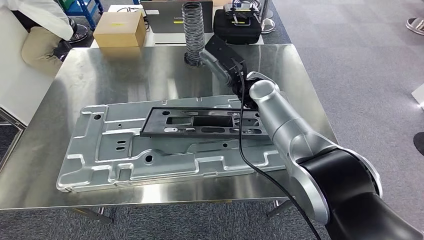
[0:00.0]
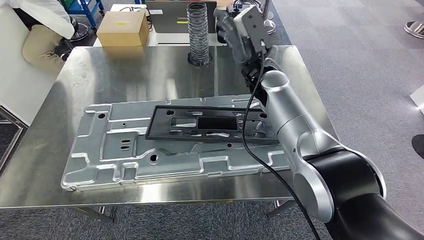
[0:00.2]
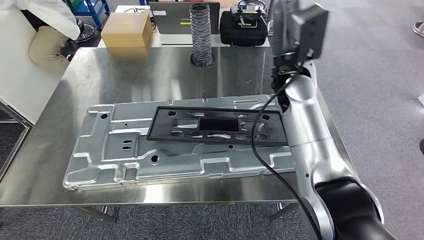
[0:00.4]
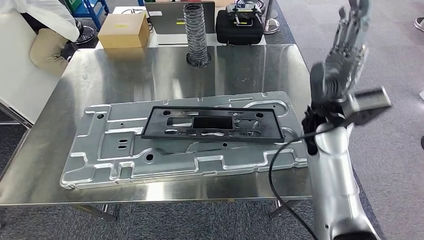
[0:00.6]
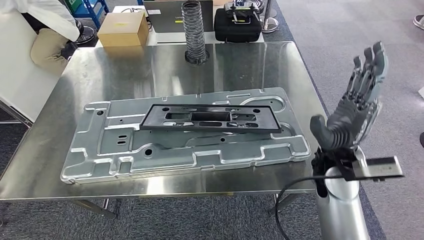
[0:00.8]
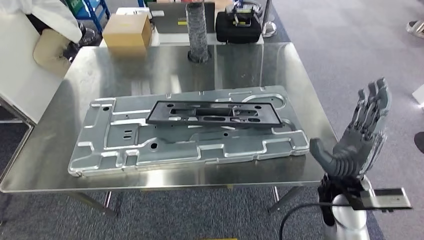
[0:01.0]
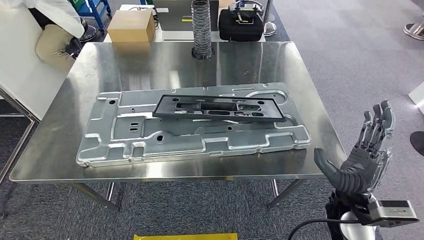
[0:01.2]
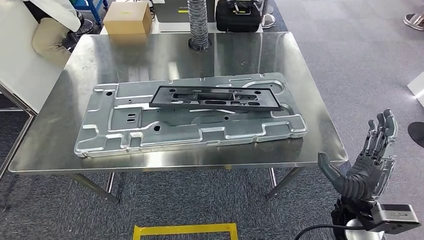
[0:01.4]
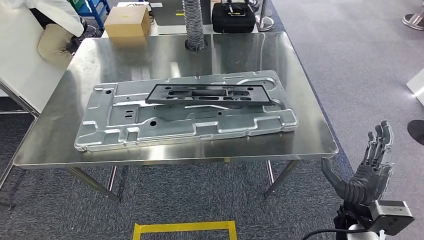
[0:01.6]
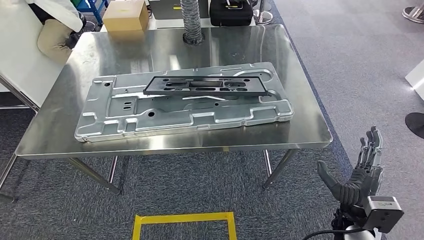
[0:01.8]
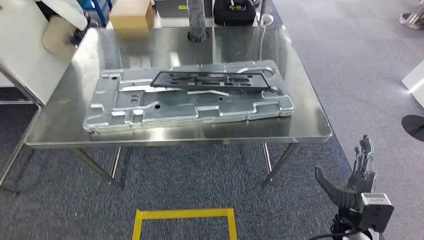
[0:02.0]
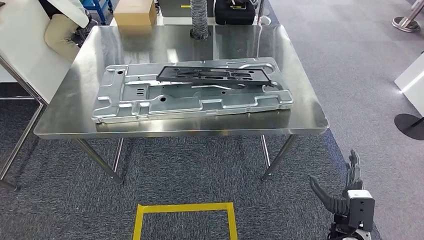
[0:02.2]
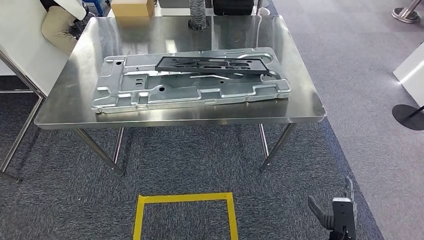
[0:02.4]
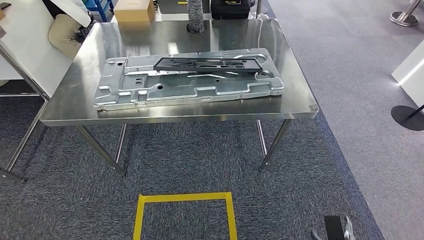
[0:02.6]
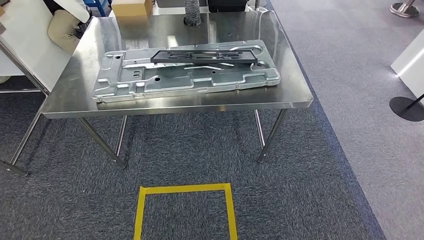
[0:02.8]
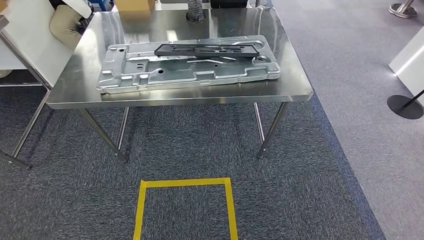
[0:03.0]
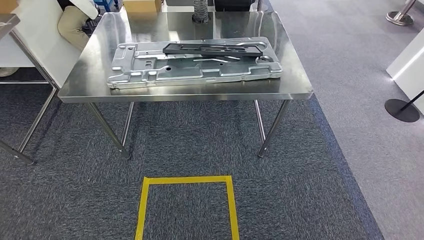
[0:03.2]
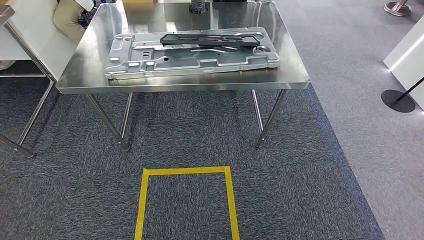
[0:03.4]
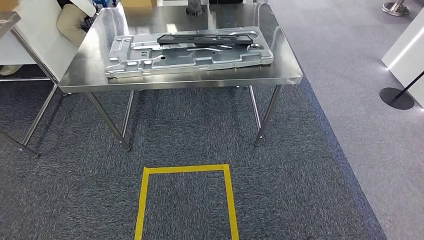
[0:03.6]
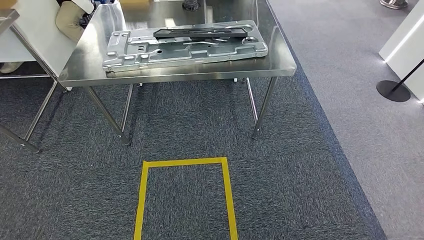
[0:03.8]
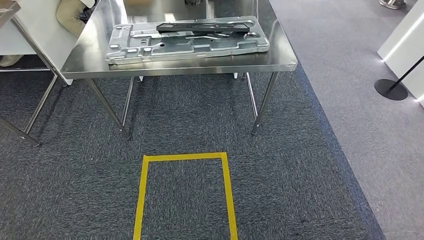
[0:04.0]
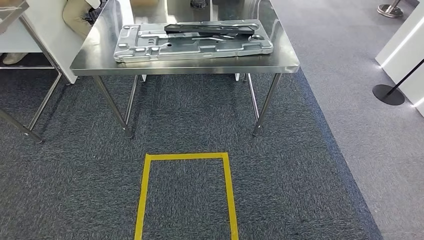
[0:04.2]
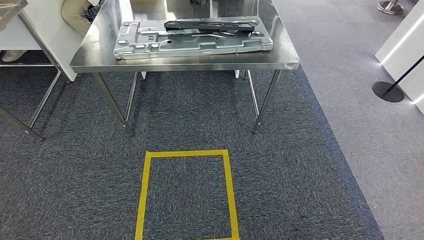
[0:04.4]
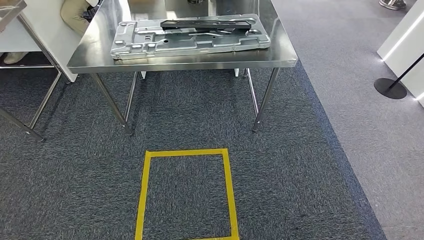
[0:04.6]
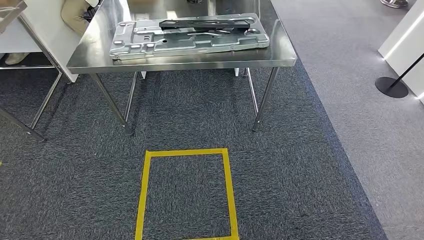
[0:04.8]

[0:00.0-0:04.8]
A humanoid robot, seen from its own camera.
Step, 0:01.4 to 0:04.6: Return to the initial position at the workbench.
